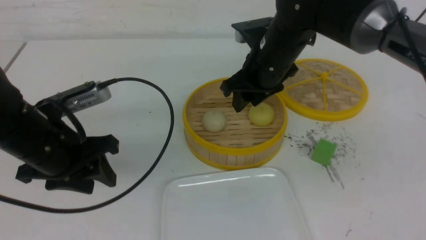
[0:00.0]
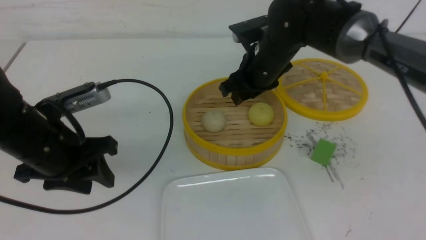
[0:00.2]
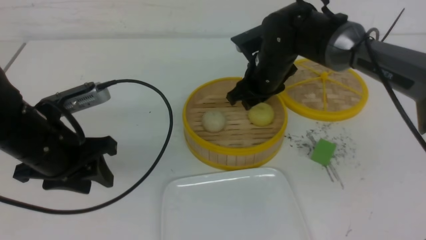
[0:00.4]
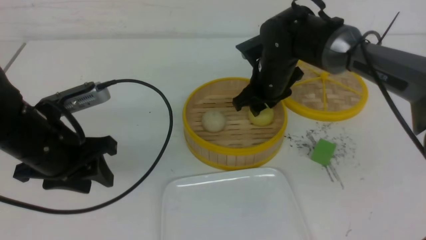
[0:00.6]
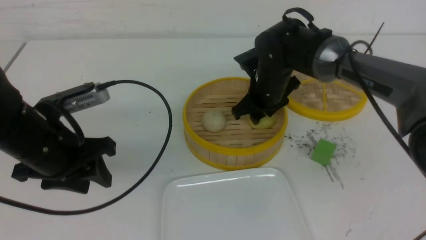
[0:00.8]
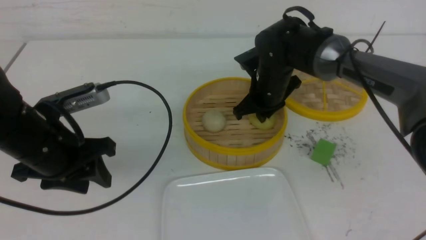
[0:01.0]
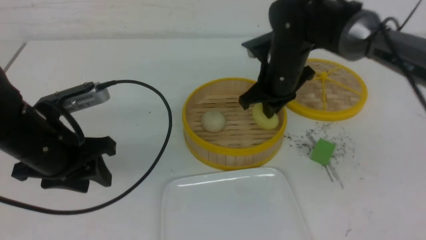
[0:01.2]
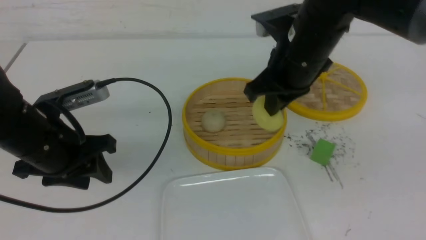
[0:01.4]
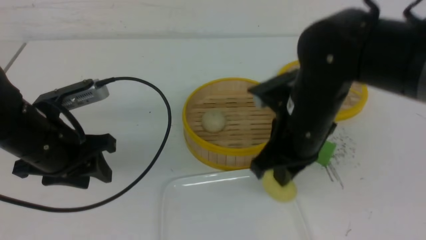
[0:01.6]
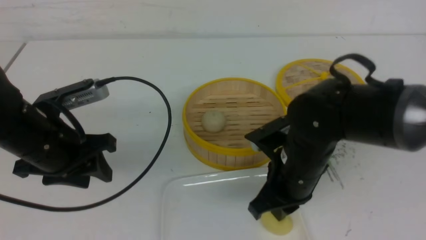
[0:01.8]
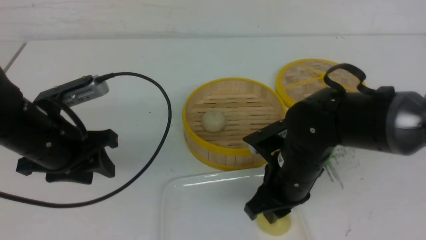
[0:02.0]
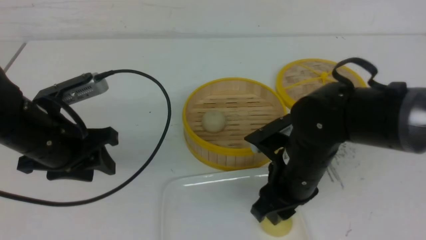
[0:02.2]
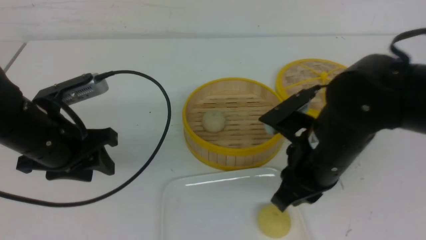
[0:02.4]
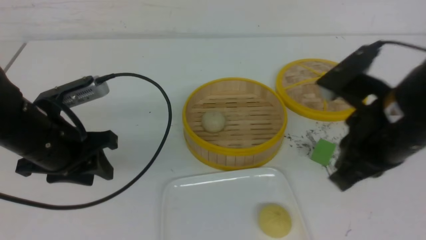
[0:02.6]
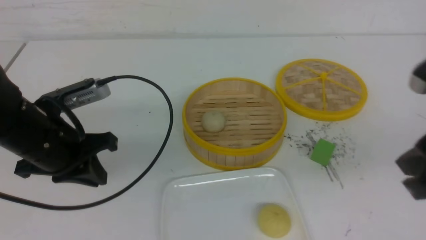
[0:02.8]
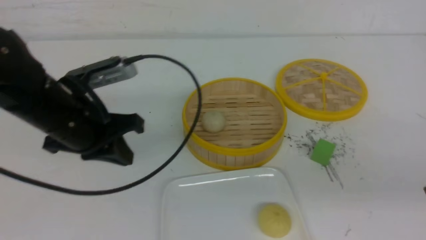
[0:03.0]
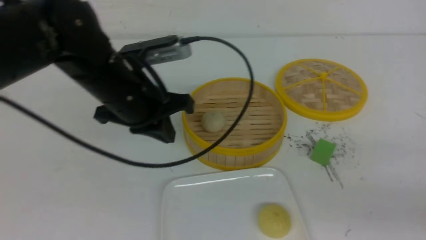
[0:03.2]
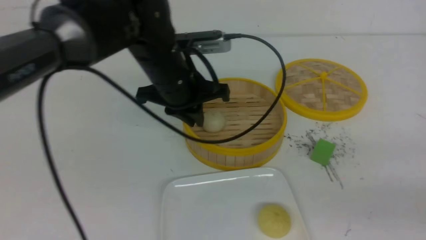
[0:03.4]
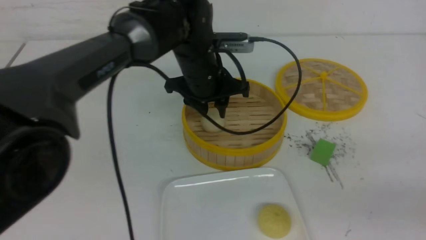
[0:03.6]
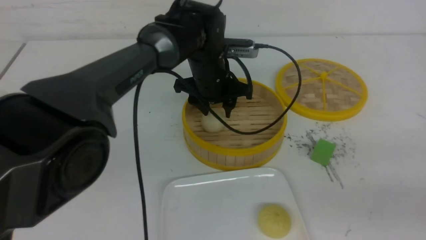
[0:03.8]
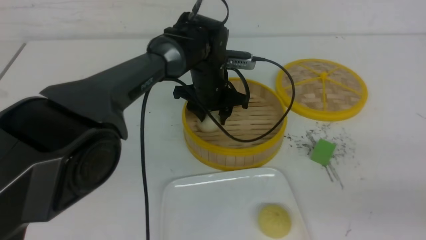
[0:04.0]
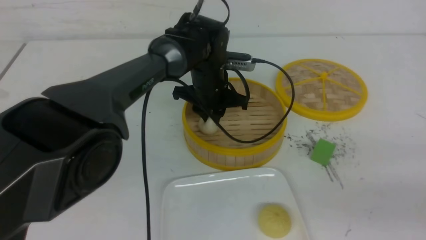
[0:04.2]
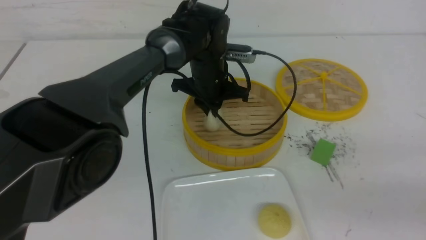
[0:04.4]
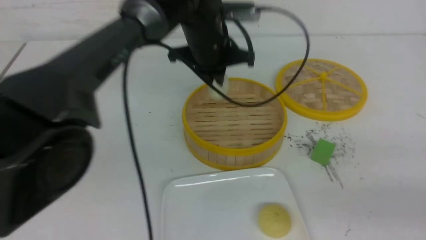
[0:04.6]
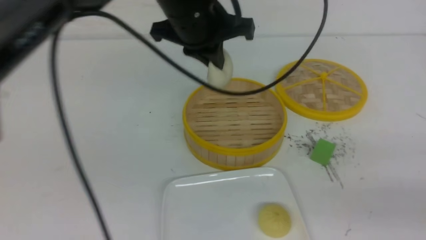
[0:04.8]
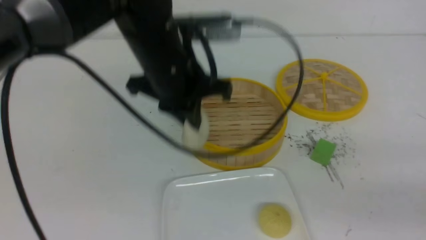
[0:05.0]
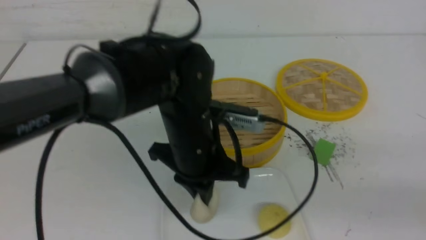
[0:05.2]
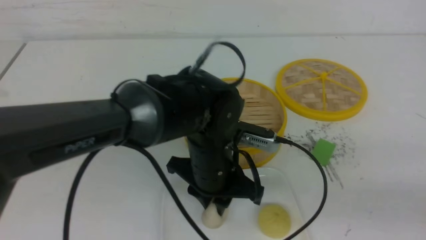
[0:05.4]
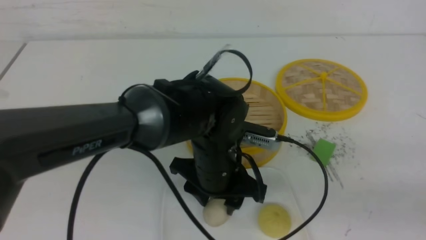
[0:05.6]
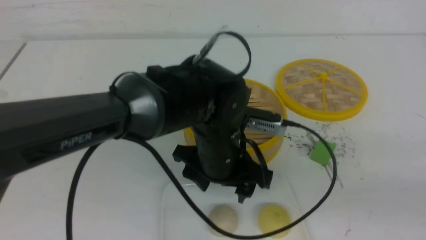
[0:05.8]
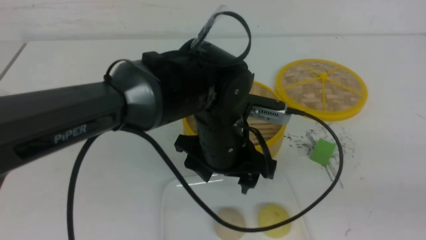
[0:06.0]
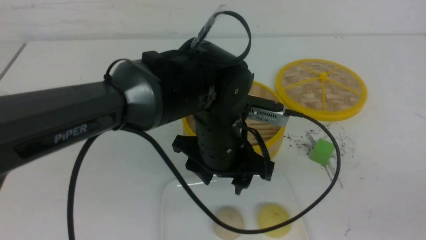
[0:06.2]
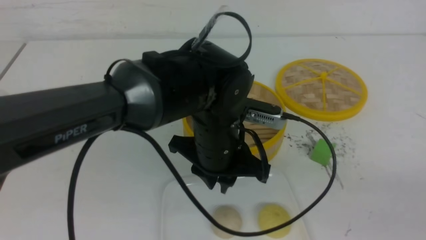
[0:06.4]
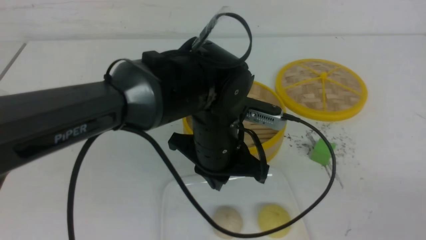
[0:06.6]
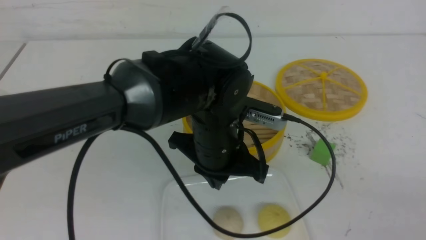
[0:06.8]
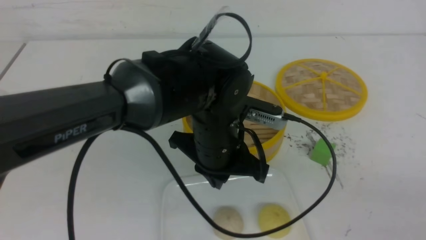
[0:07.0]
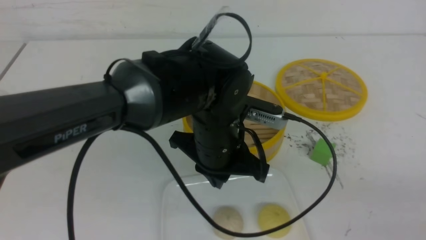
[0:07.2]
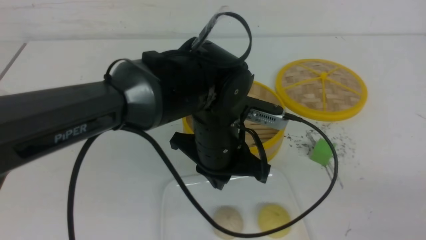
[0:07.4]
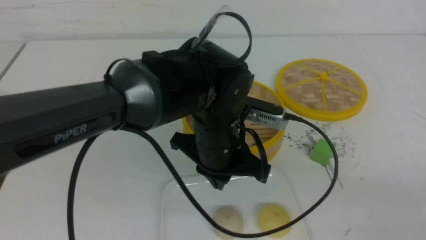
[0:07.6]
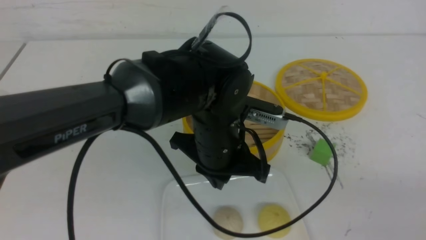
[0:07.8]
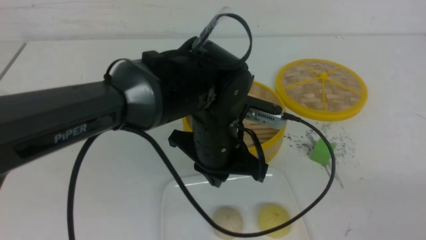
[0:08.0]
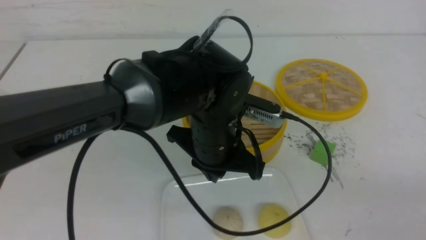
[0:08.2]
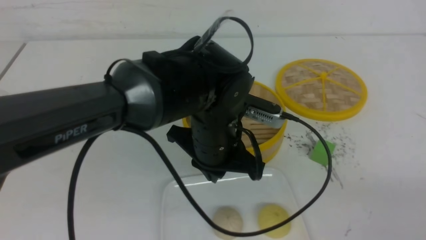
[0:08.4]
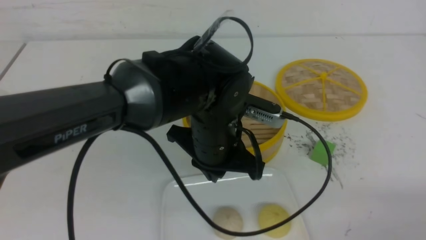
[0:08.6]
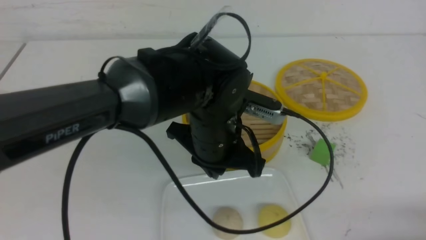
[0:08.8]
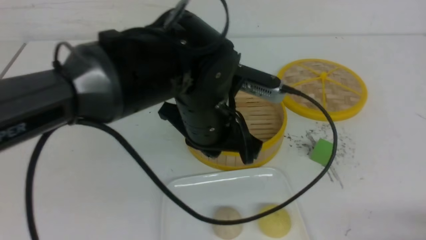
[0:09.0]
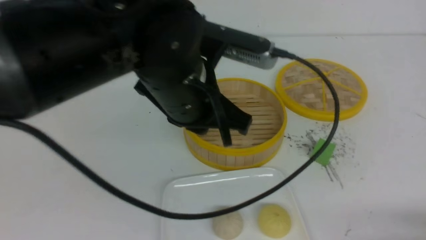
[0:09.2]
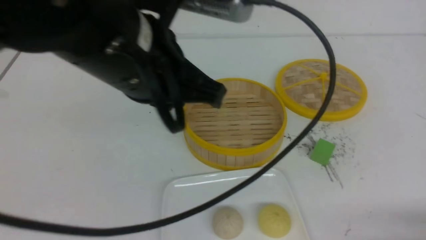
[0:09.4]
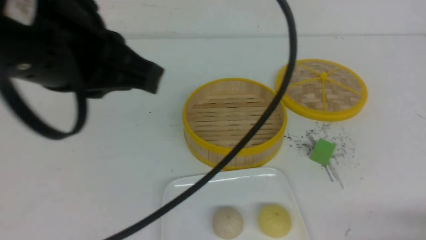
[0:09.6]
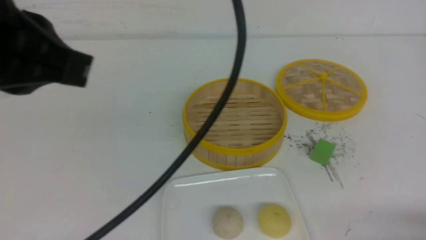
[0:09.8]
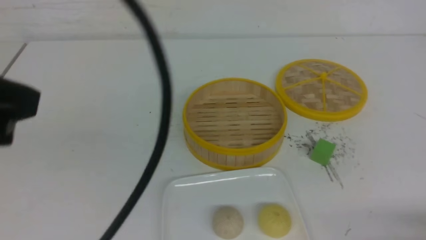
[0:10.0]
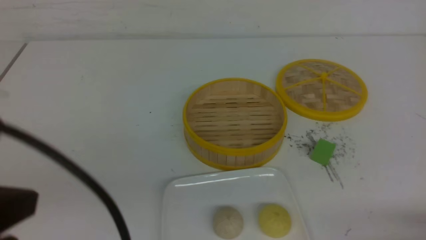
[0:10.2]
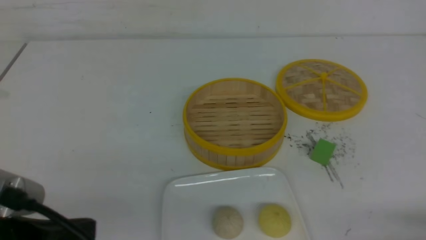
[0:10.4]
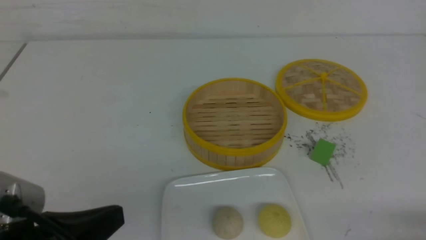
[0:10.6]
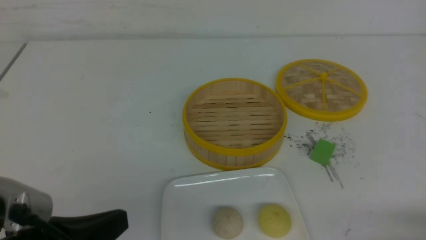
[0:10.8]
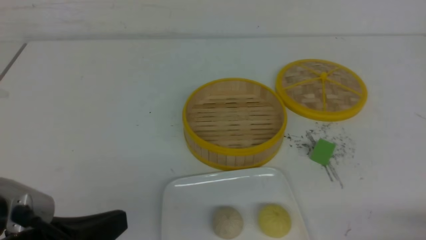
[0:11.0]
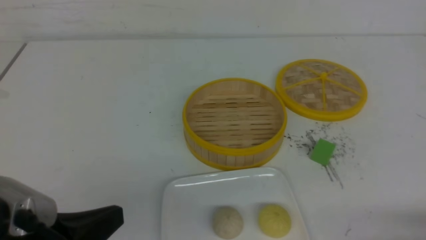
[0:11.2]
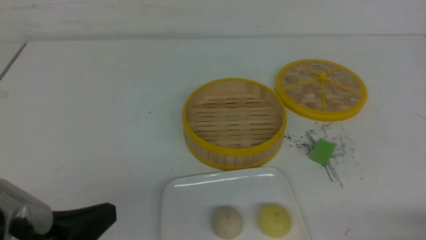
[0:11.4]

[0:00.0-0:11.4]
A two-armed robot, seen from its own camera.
Step, 0:01.2 to 0:02.2: use the right arm to put the steamed stuffed bun into the plate.
Step, 0:02.4 to 0:04.2: use the left arm to grab the steamed stuffed bun that is closest to it.
Step, 0:04.6 to 0:05.6: use the left arm to put the steamed stuffed bun into the plate.
0:00.0 to 0:01.4: The right gripper is displaced backward by about 5 cm, and closes up.
0:01.4 to 0:02.8: The left gripper closes up. The right gripper shifts roughly 20 cm backward and to the right, and opens, then closes again.
0:02.8 to 0:04.2: The right gripper moves backward and to the right, approximately 10 cm. The left gripper moves to the right and forward, some 25 cm, and opens, then closes once more.
0:04.2 to 0:05.6: The left gripper travels backward by about 15 cm, and opens.
0:05.6 to 0:07.2: The right gripper is displaced backward by roughly 5 cm, while the left gripper closes.
0:07.2 to 0:08.6: The right gripper travels downward by approximately 5 cm.
0:08.6 to 0:10.0: The left gripper is displaced to the left, upward and backward by about 30 cm.
0:10.0 to 0:11.4: The left gripper moves downward, roughly 15 cm.

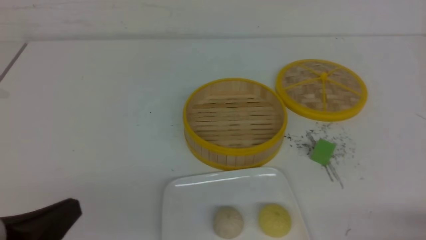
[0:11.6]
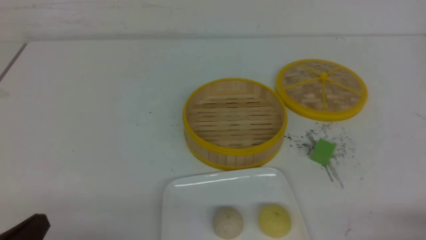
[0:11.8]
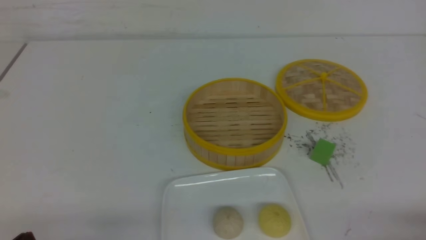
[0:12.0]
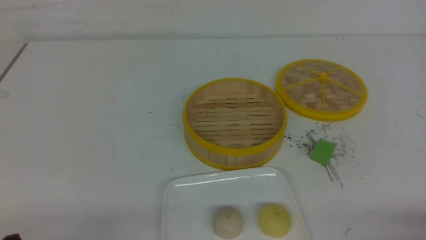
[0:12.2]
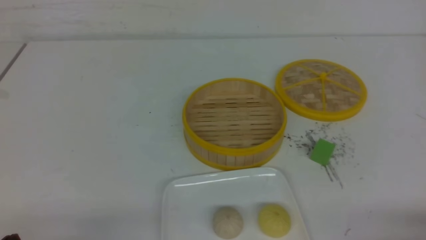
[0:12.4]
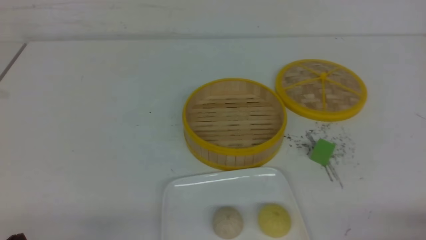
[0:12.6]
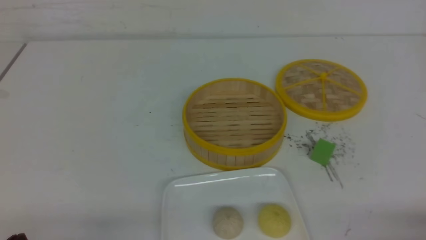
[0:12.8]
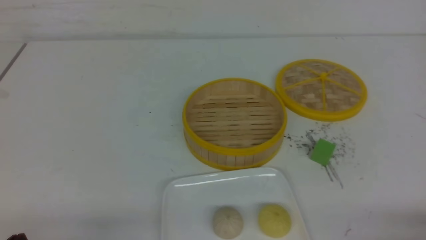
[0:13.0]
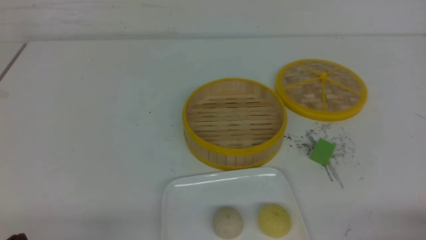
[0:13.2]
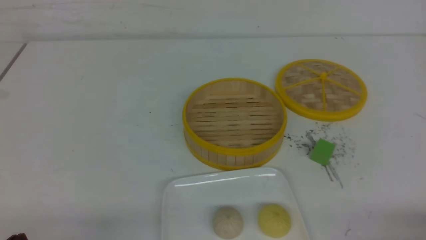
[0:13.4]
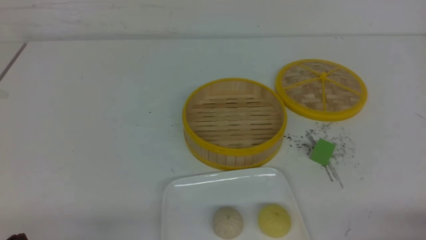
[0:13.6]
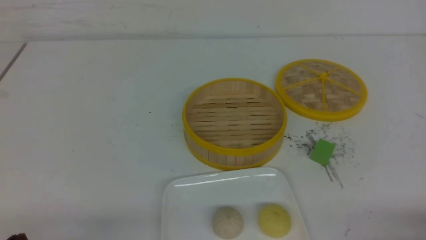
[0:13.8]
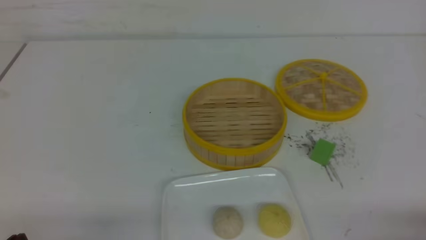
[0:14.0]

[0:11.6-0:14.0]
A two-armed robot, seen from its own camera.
0:11.6 to 0:12.8: The left gripper is displaced downward by about 10 cm.
0:12.8 to 0:14.0: Neither gripper changes place.
